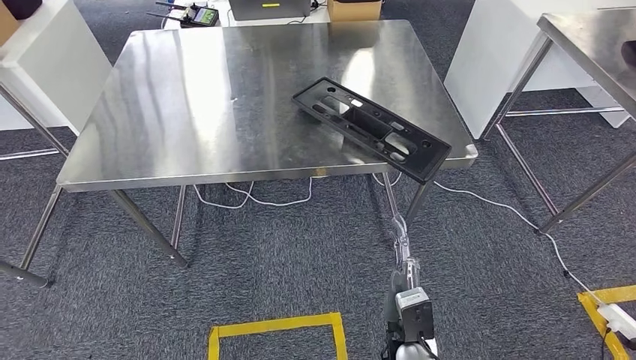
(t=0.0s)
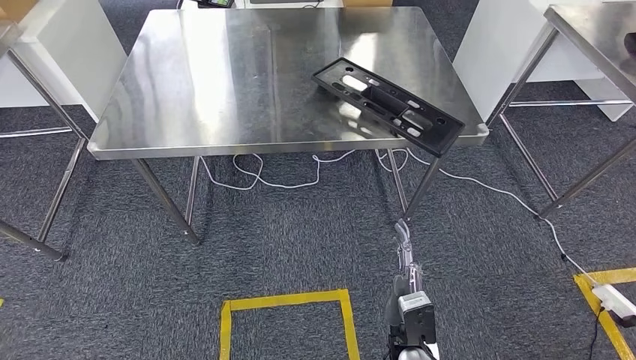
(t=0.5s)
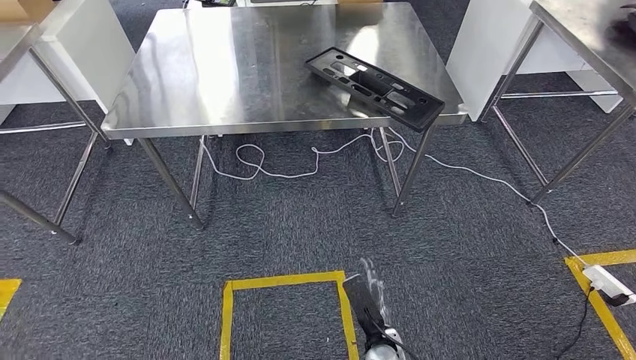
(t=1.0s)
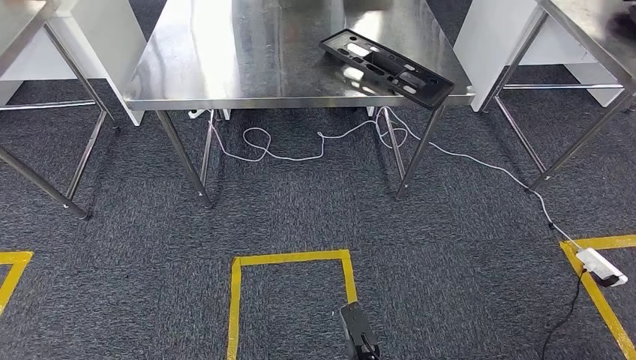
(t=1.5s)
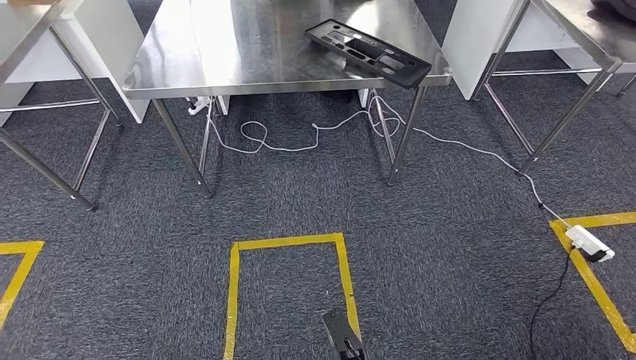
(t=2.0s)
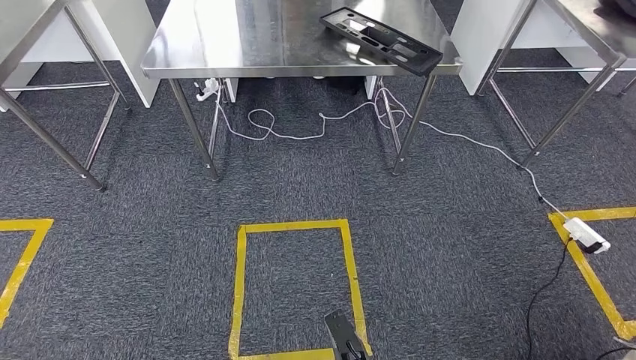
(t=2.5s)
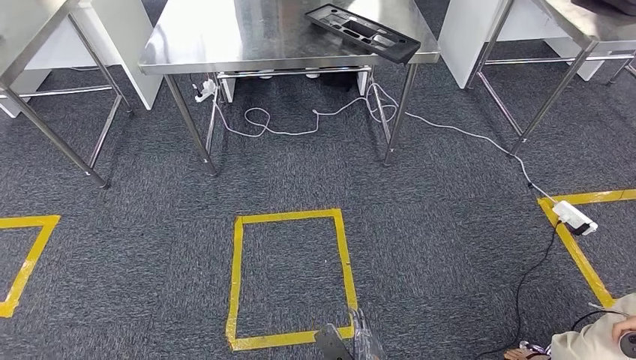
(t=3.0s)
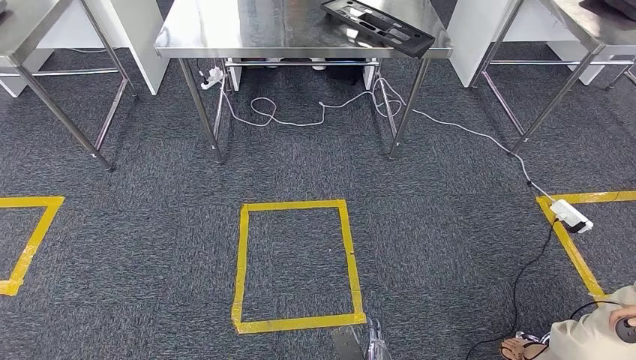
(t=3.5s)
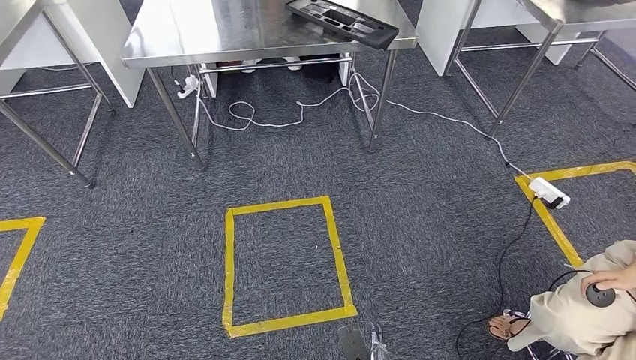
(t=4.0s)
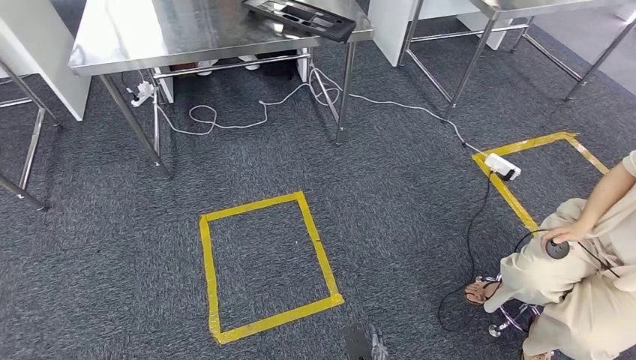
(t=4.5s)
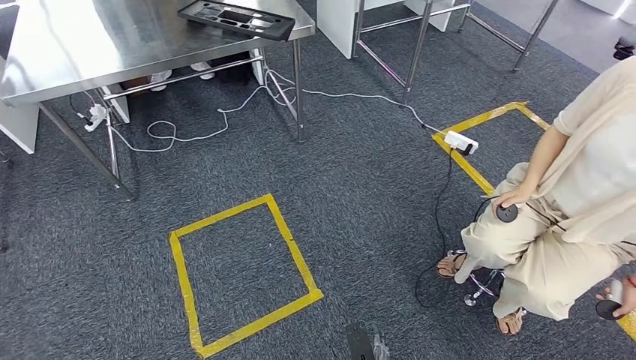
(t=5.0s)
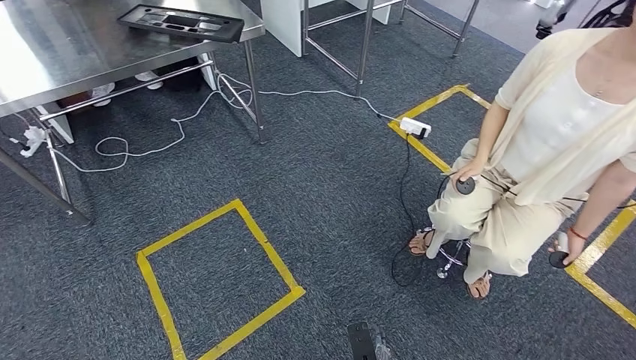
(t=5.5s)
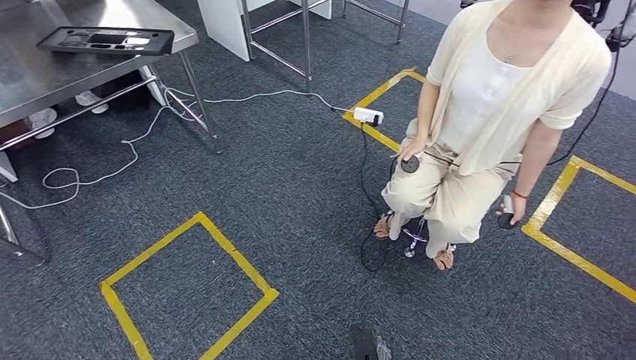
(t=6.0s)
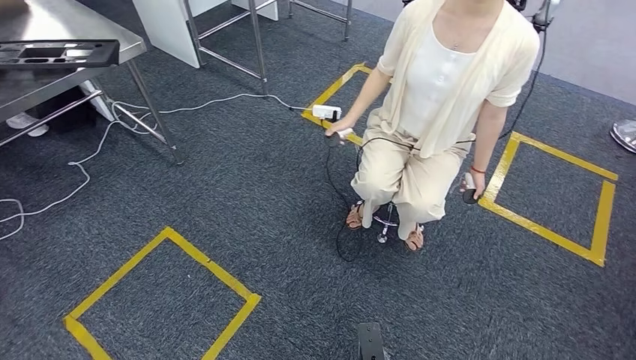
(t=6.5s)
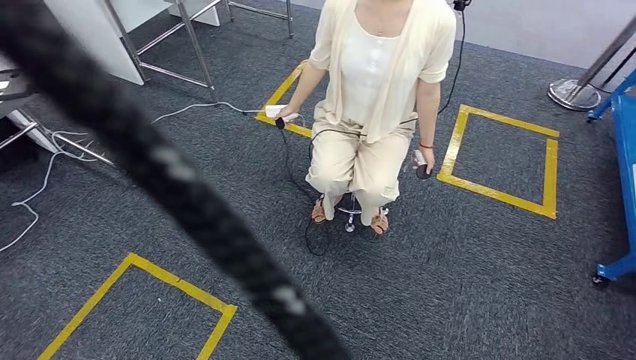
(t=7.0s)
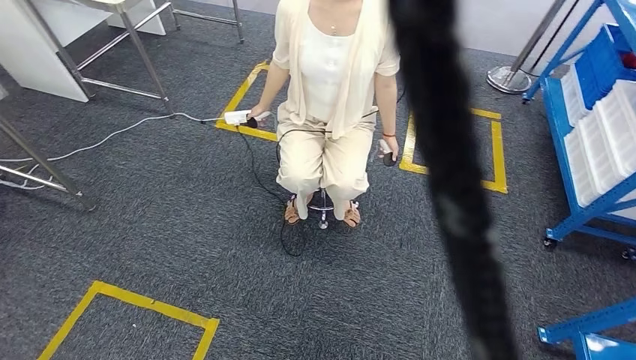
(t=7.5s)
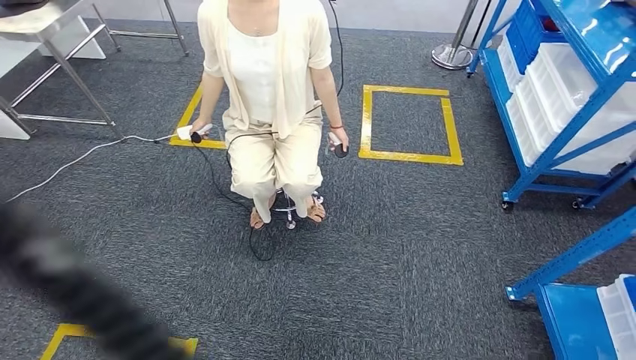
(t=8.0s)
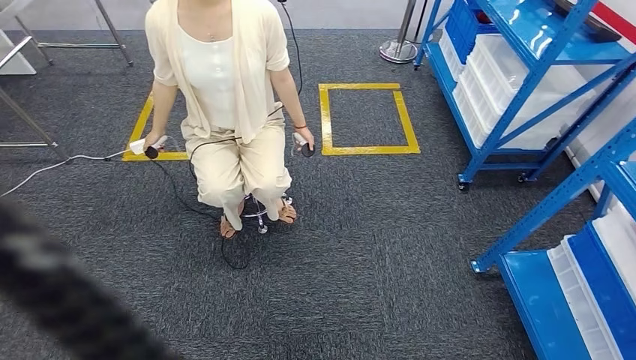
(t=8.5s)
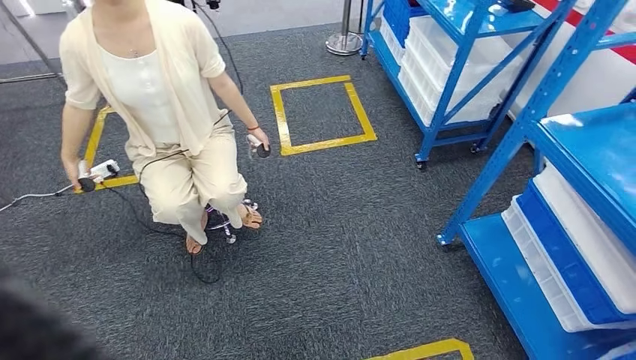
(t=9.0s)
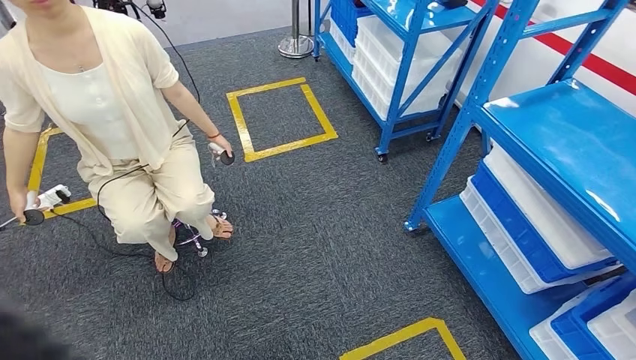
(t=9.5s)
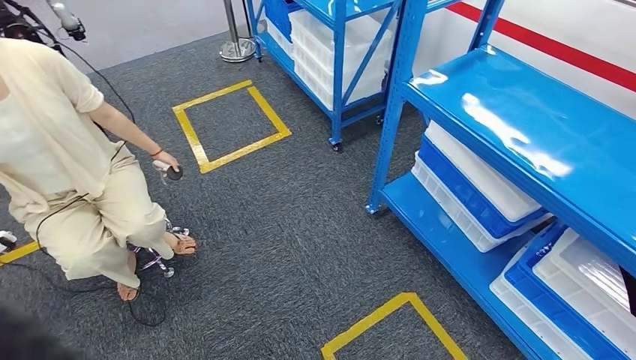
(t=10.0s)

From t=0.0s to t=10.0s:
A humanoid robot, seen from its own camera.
Step, from t=0.0s to t=2.0s: Insert the large material into the corresponding hole on the workbench.

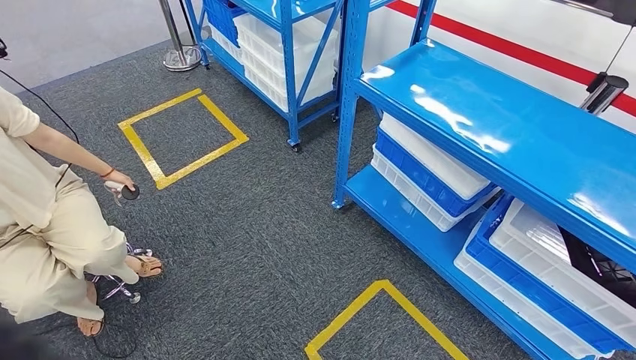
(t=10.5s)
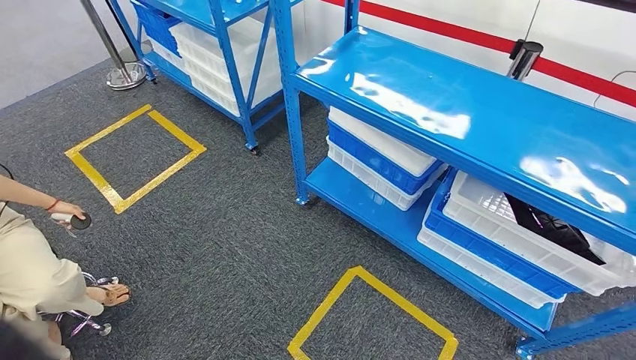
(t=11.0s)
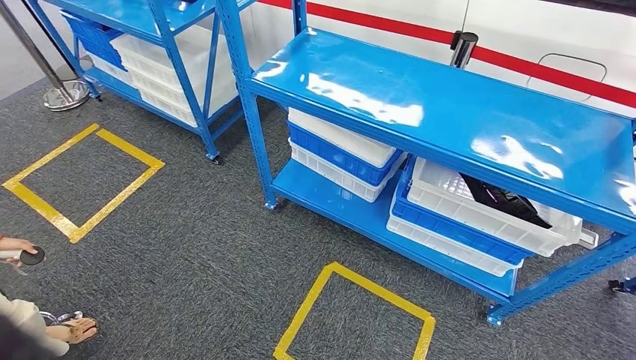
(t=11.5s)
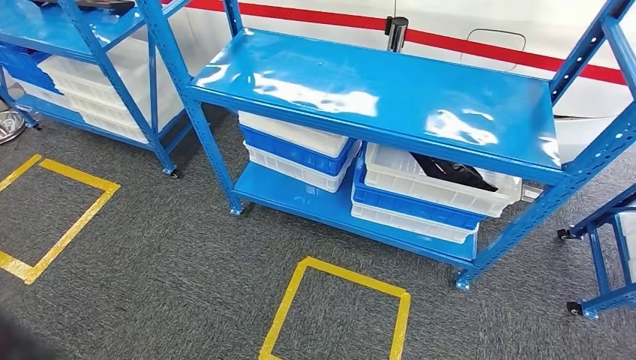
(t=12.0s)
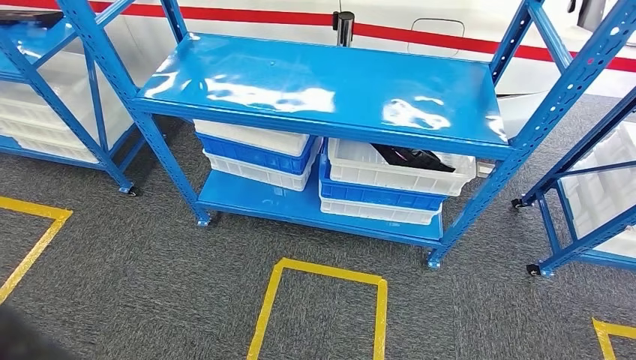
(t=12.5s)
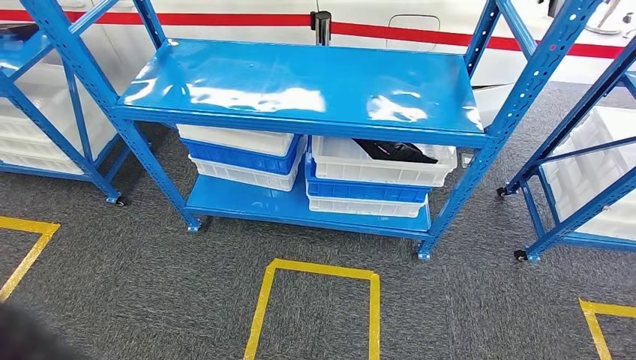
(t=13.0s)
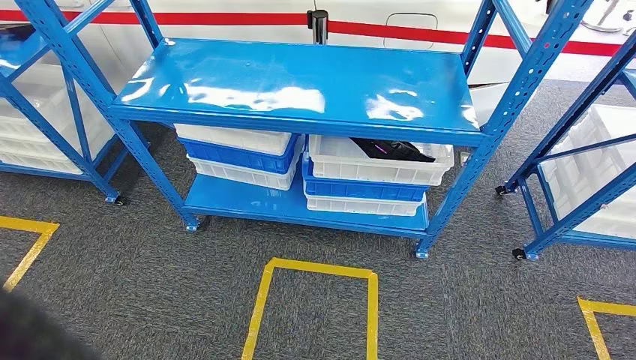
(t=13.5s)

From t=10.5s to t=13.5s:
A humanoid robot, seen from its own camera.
Step, from t=10.5s to t=13.5s: Move to the initial position of the shelf.
